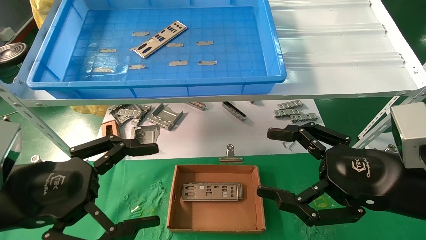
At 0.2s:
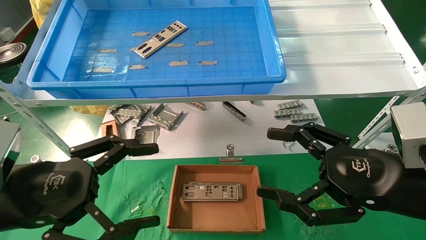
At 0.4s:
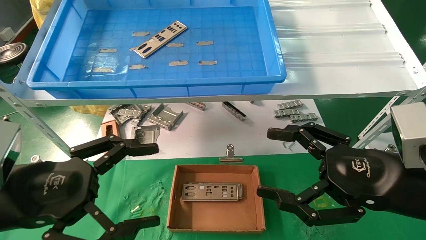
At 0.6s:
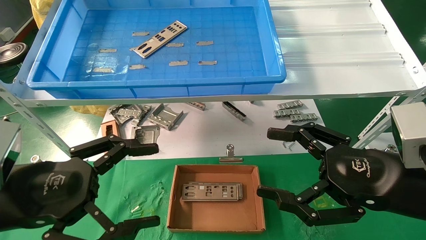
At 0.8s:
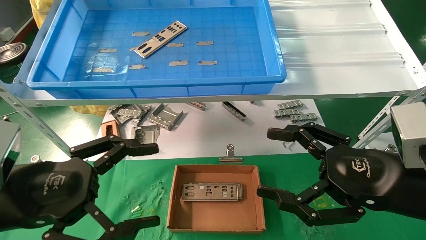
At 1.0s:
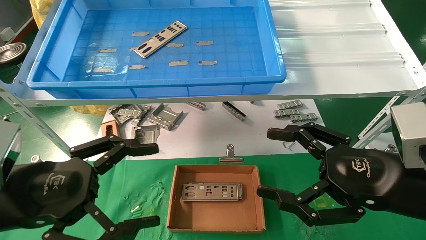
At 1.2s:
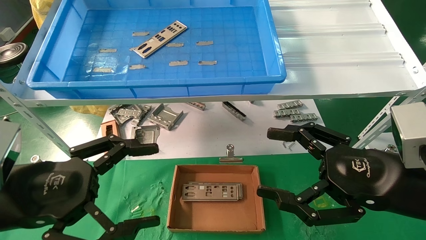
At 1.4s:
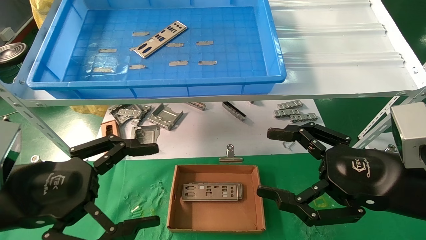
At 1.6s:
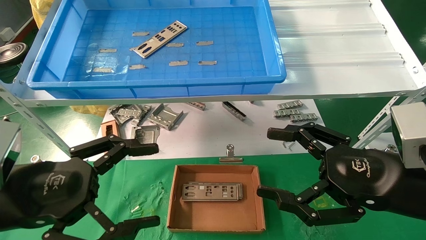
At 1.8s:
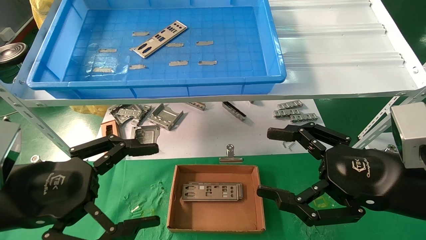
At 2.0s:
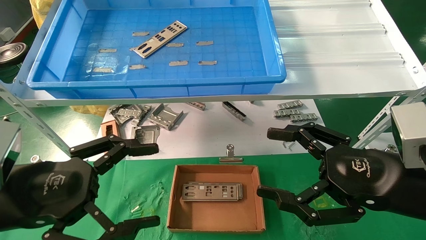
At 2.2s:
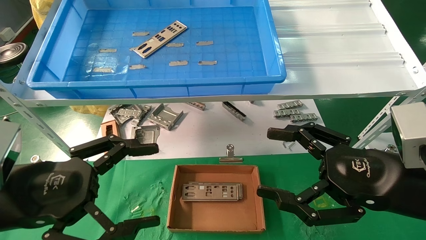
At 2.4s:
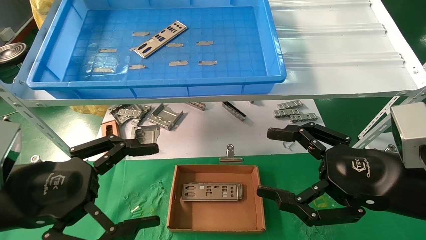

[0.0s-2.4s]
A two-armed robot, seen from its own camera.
Task of the whole recording: pick up the parts on the tray and put them in the cardboard box.
0.0s to 2.4s: Both grippers stay put.
